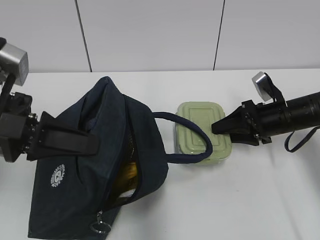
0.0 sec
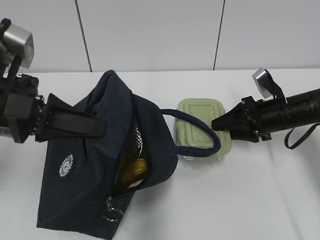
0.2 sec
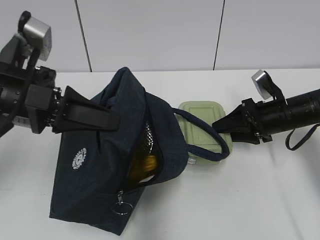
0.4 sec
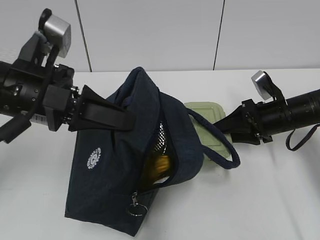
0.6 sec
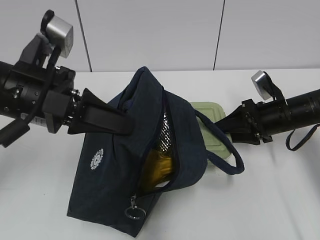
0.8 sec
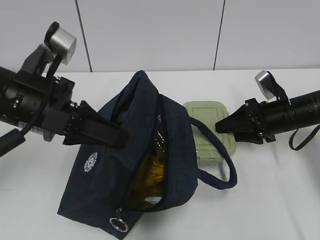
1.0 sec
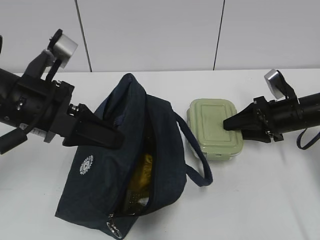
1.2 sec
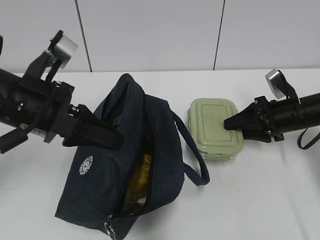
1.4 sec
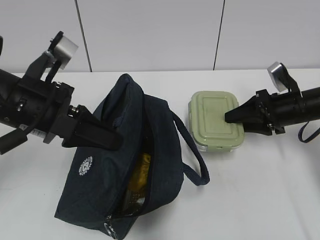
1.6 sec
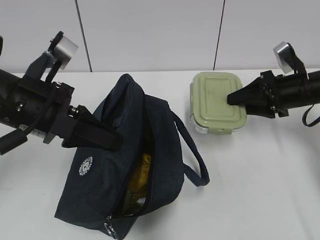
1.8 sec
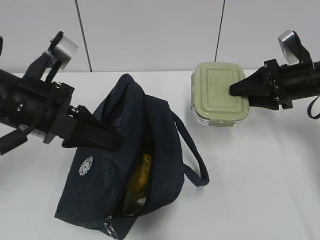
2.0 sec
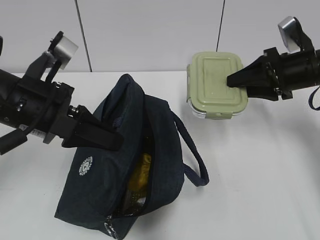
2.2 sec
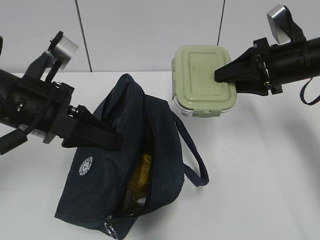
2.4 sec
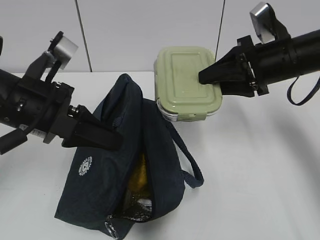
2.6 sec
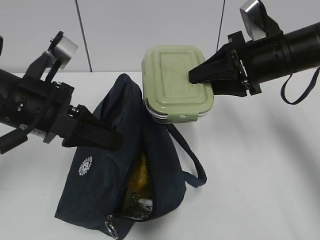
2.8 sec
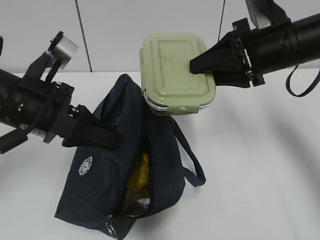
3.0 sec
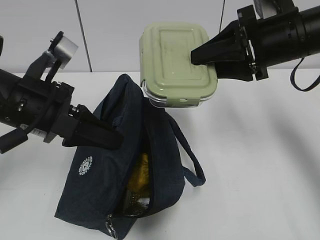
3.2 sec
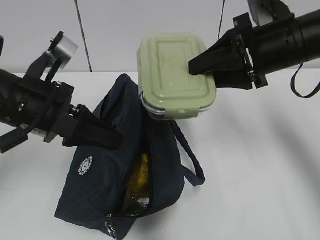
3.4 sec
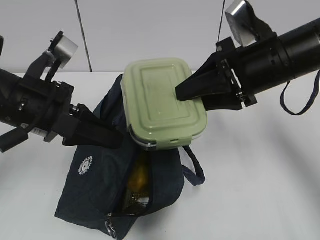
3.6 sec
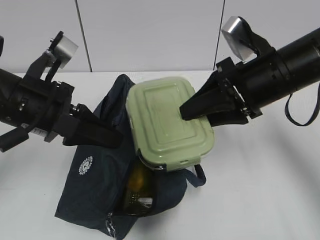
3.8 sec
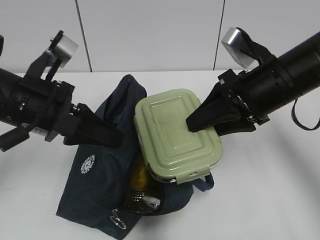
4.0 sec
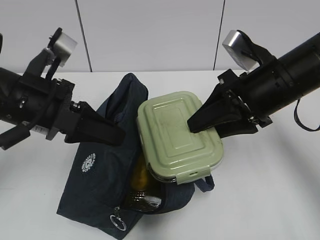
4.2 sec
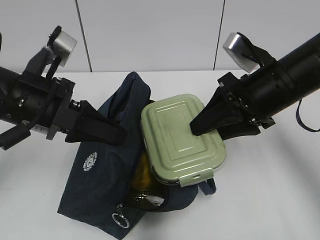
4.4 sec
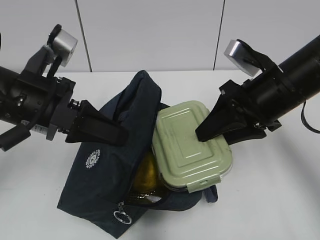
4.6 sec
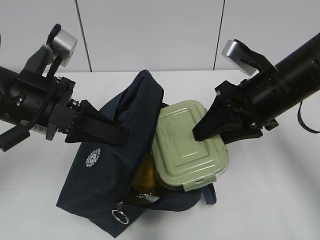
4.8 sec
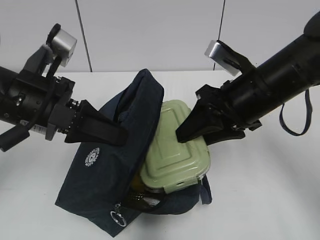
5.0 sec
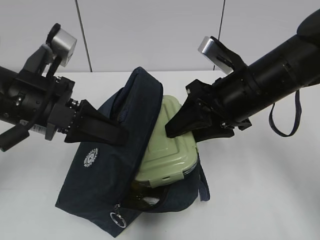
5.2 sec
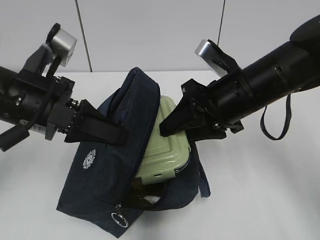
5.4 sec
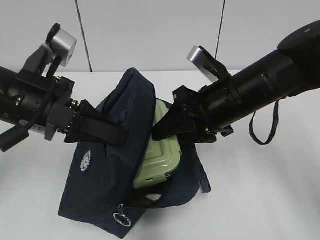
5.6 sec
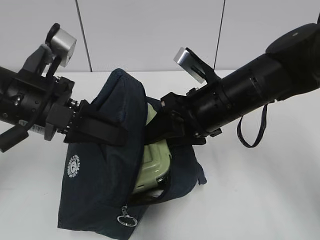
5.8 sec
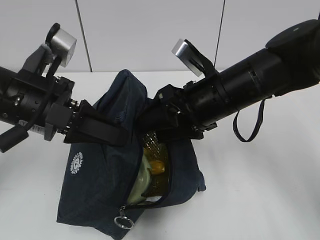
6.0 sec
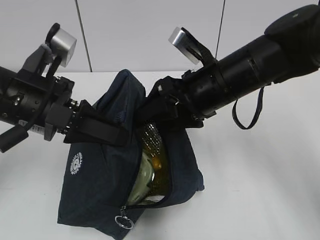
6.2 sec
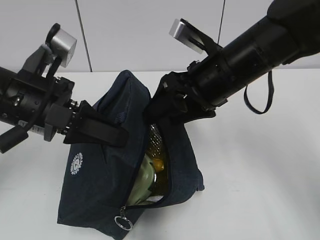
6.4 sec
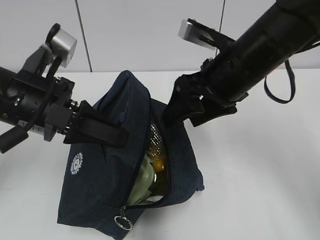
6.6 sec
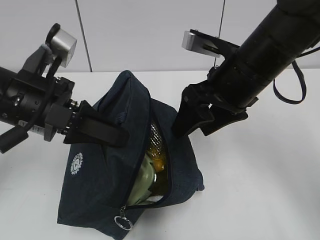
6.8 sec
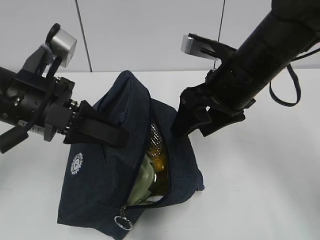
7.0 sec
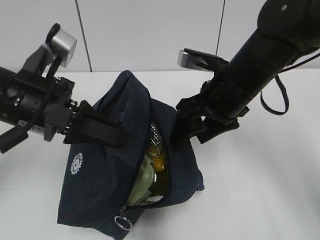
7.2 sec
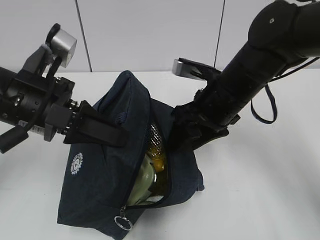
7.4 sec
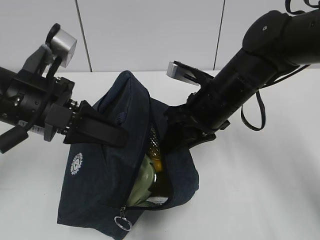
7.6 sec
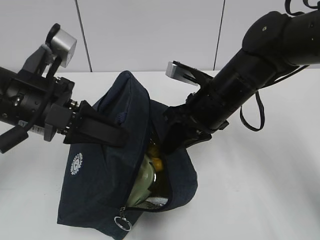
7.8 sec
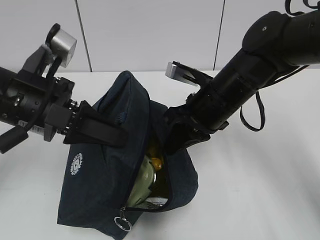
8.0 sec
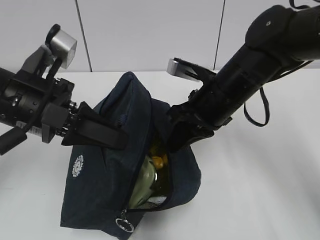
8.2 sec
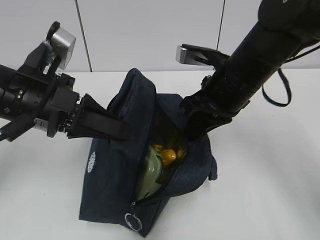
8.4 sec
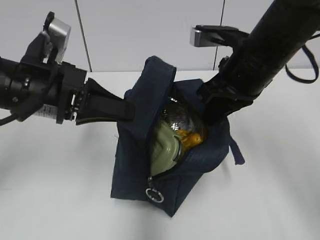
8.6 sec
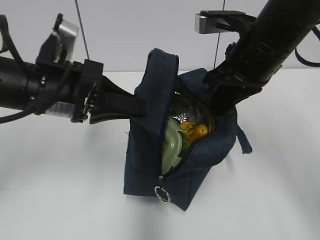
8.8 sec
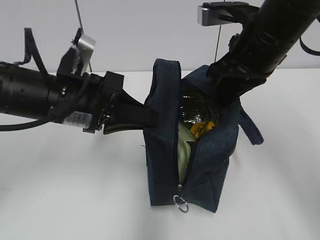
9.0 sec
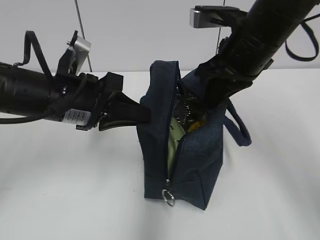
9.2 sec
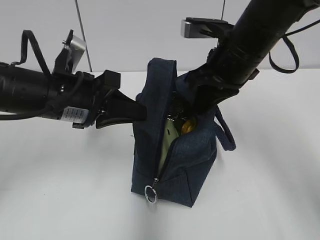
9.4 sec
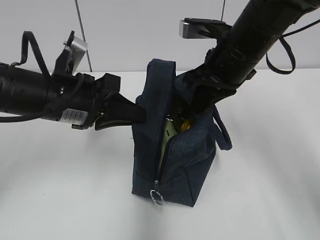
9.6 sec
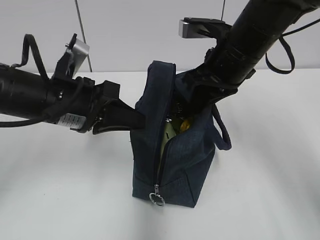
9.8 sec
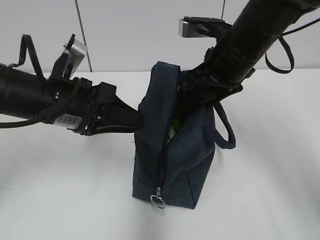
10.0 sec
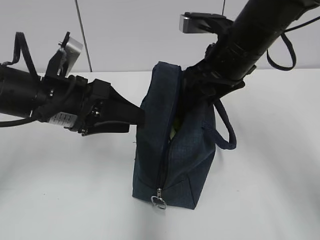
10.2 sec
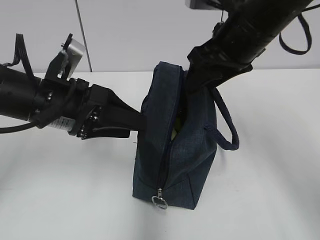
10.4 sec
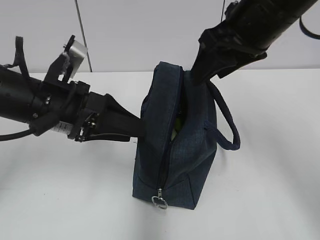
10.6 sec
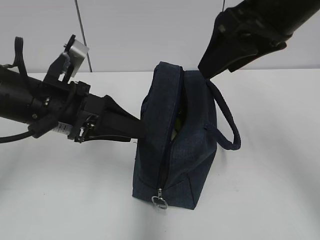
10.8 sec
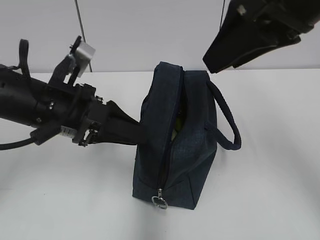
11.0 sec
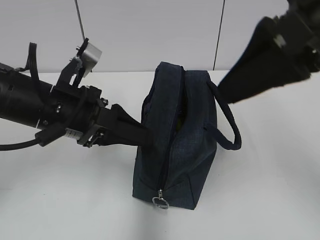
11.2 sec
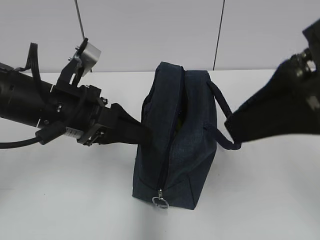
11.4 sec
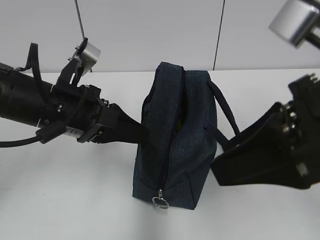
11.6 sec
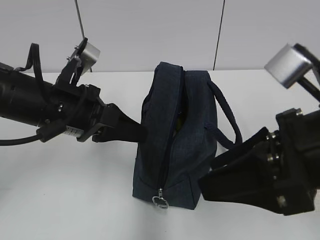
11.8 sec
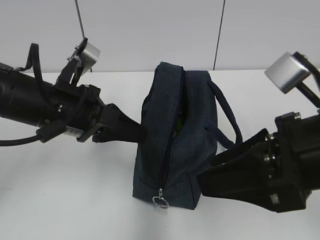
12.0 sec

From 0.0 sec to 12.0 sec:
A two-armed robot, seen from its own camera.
From 0.0 sec to 1.6 sec: The left gripper moves some 5 cm.
From 1.6 sec to 3.0 sec: The right gripper goes roughly 15 cm upward and to the left.
From 3.0 sec to 4.4 sec: The right gripper changes place by about 5 cm.
From 4.4 sec to 6.0 sec: The right gripper travels to the left by some 5 cm.
From 6.0 sec to 7.6 sec: The right gripper closes.
From 7.6 sec to 9.0 sec: The right gripper moves upward, roughly 10 cm, and closes.
From 9.0 sec to 10.4 sec: The left gripper opens its fingers, while the right gripper opens up.
From 10.4 sec to 12.0 sec: The left gripper closes. Meanwhile the right gripper goes some 15 cm backward.

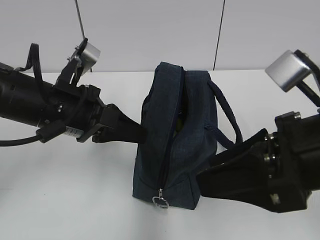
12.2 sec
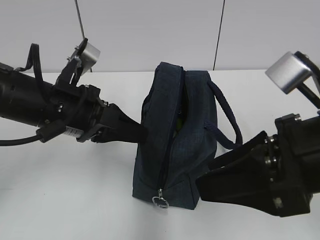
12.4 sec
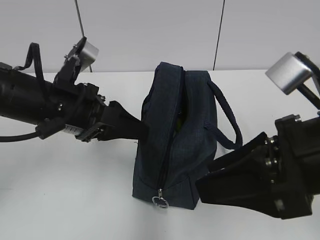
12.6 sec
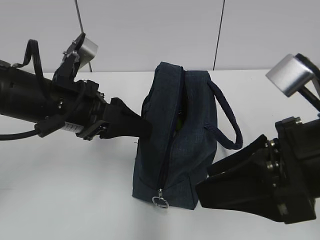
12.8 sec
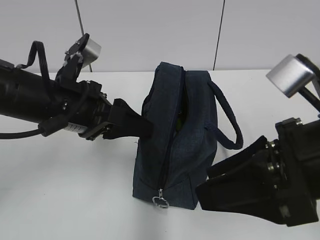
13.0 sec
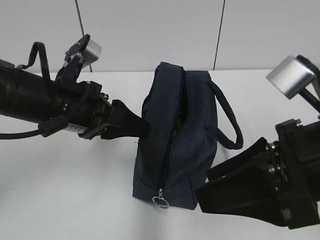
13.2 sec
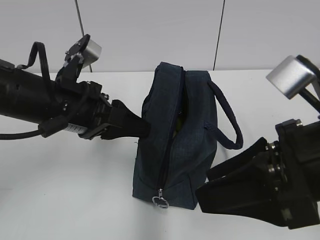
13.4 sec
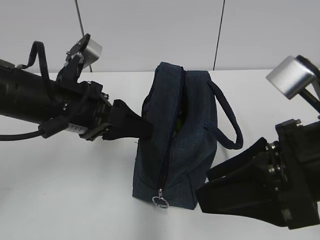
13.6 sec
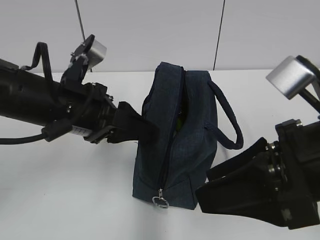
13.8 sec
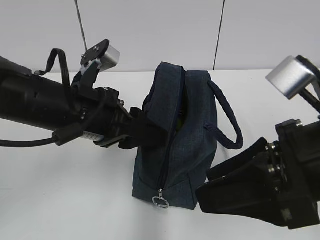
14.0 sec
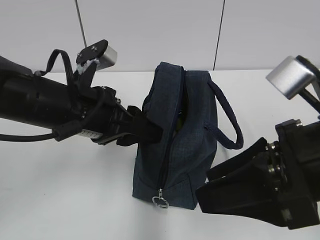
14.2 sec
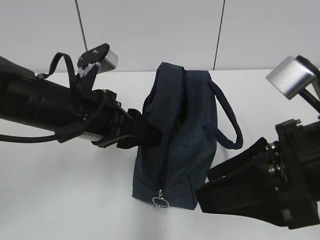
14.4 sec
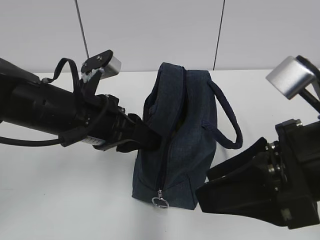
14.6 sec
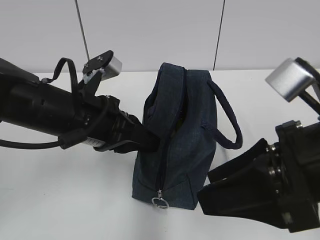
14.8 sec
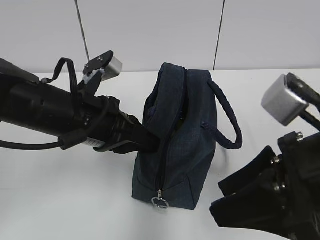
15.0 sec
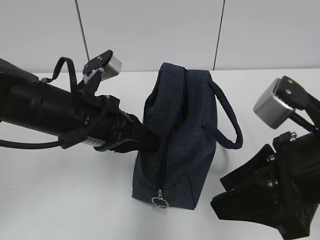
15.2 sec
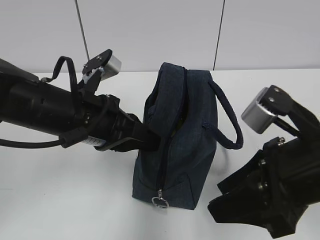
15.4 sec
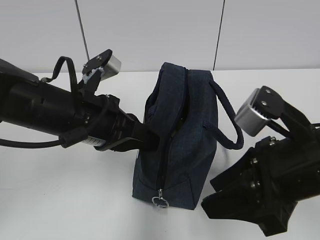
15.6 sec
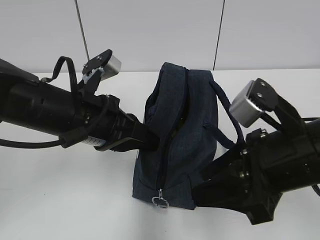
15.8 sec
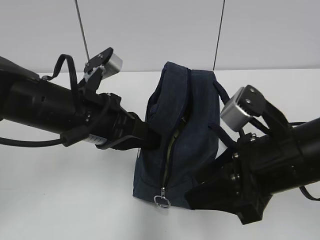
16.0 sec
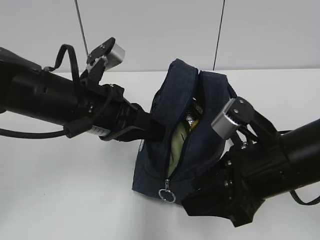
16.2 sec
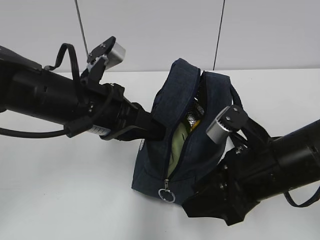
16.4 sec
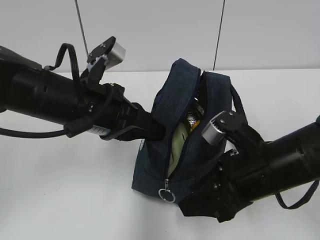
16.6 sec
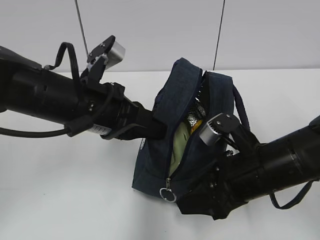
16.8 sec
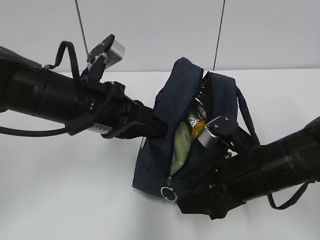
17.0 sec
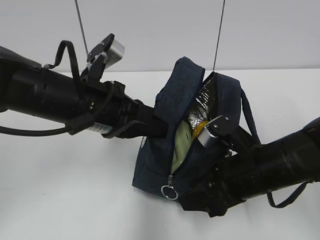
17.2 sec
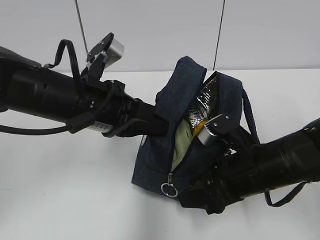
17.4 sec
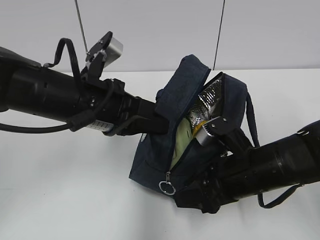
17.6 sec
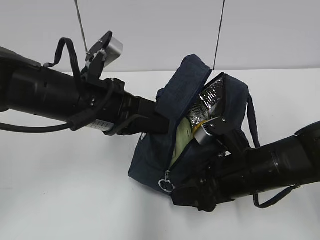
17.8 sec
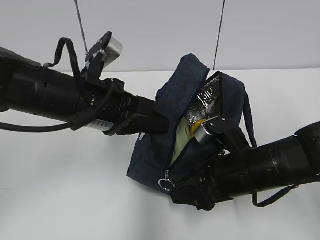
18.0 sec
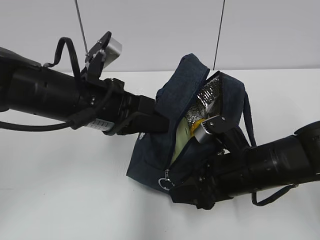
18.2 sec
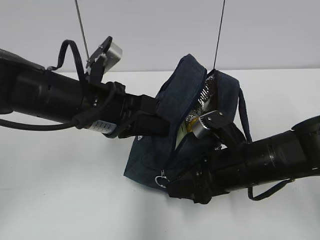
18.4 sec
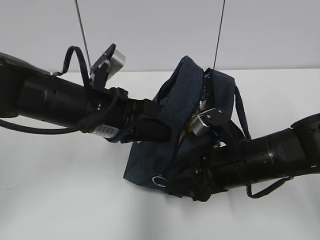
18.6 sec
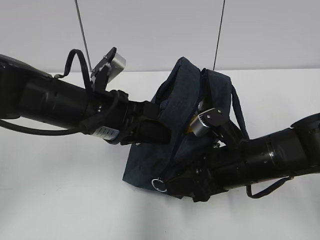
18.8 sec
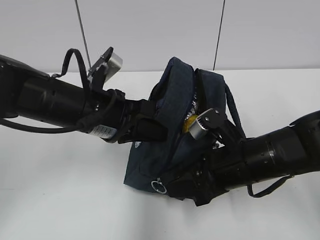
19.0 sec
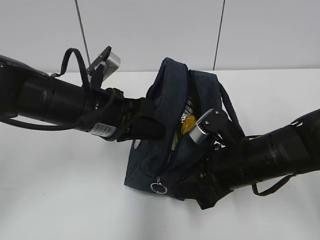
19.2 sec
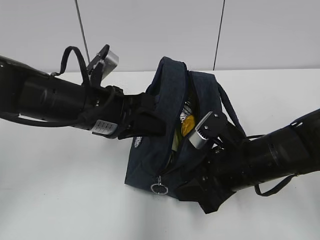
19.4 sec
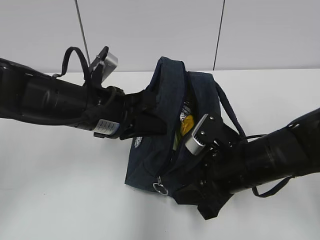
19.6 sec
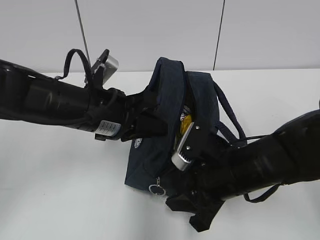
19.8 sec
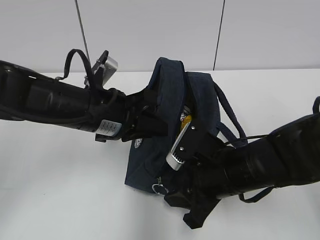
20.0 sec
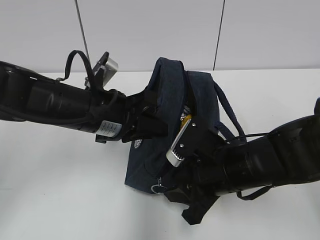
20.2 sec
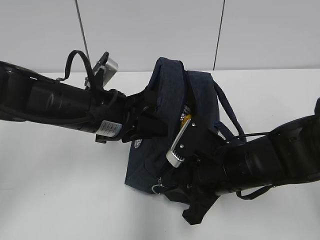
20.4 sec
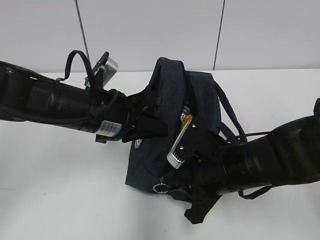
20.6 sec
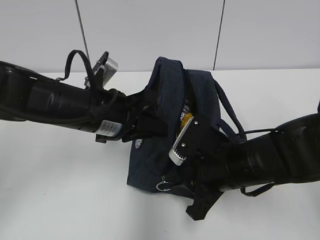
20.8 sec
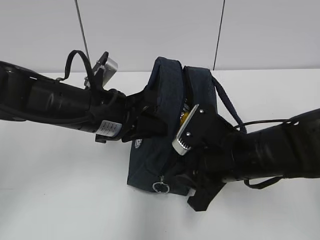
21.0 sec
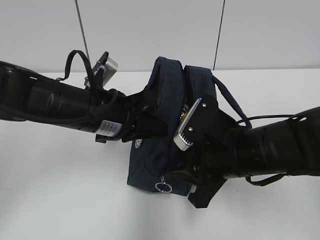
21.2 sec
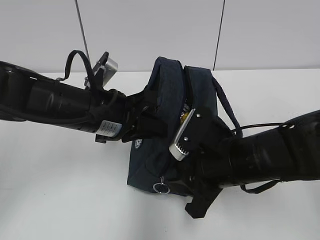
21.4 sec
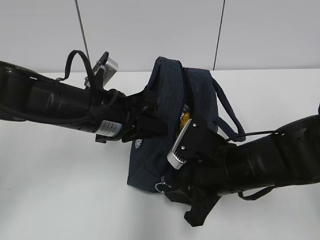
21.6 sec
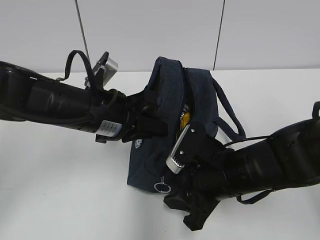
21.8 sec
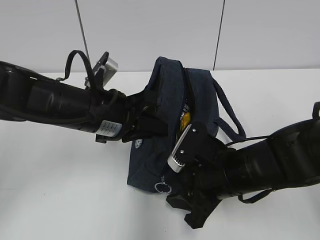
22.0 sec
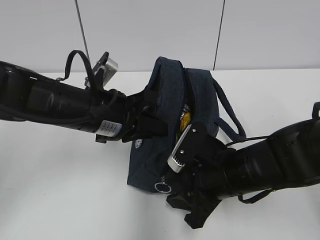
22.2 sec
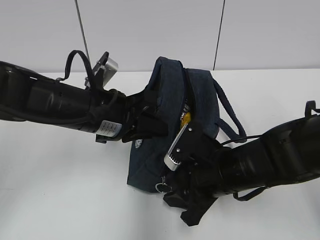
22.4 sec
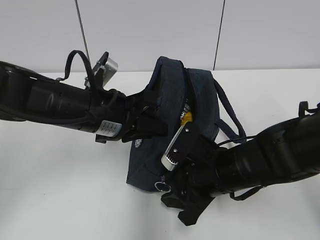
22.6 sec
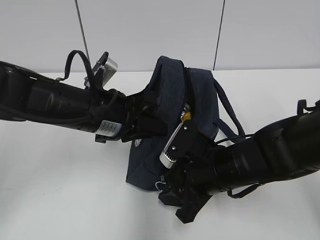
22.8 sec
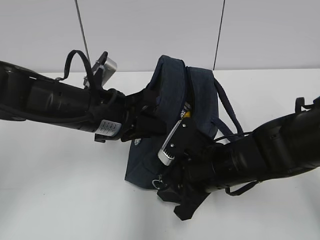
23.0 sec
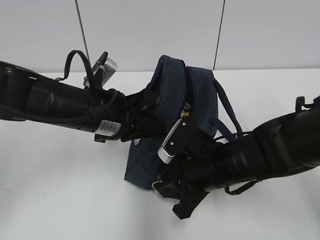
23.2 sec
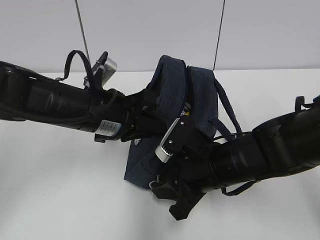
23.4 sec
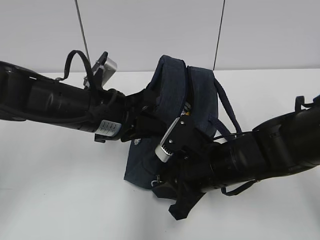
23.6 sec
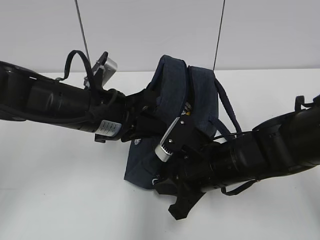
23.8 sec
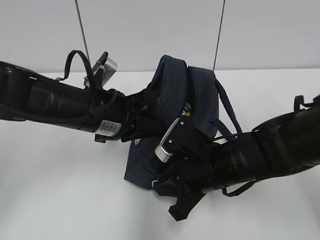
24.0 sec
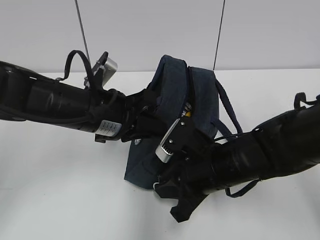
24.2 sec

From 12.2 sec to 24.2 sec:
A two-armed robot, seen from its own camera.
From 12.2 sec to 13.8 sec: The left gripper opens its fingers.
From 13.8 sec to 15.2 sec: The left gripper closes its fingers.
From 15.2 sec to 16.6 sec: The right gripper is displaced downward and forward by about 10 cm.
From 16.6 sec to 18.2 sec: The grippers move only a little.
From 19.8 sec to 21.2 sec: The grippers stay close to where they were, moving slightly.
From 21.2 sec to 22.6 sec: The right gripper travels downward by roughly 5 cm.
From 22.6 sec to 24.2 sec: The right gripper closes up.
